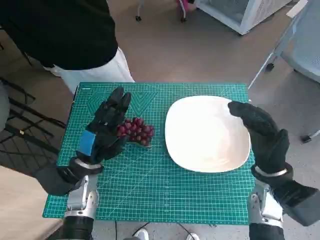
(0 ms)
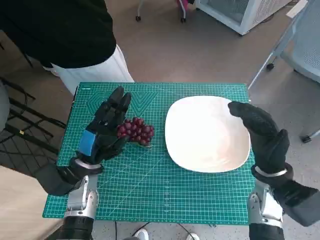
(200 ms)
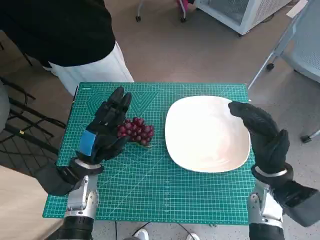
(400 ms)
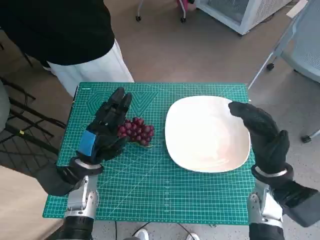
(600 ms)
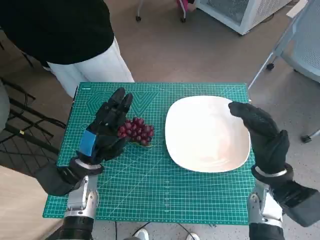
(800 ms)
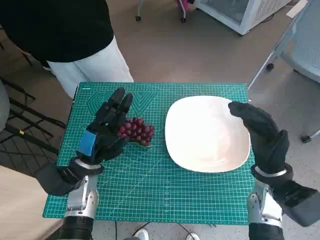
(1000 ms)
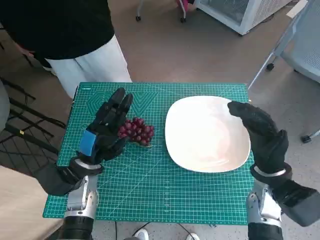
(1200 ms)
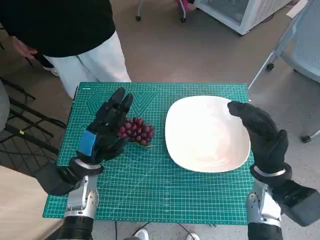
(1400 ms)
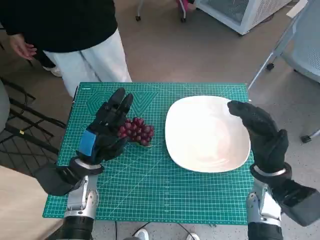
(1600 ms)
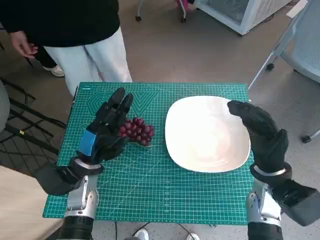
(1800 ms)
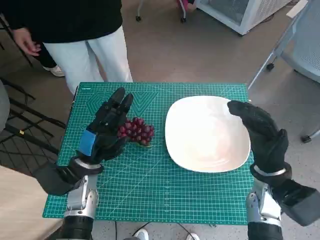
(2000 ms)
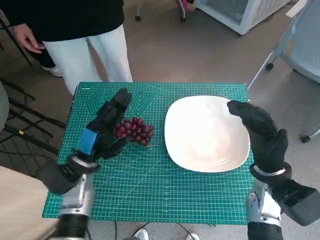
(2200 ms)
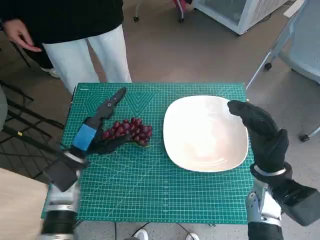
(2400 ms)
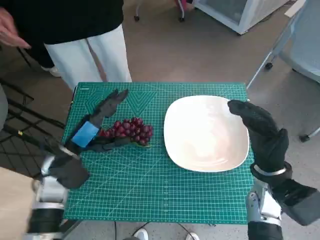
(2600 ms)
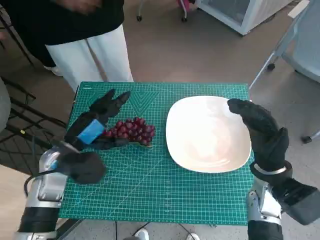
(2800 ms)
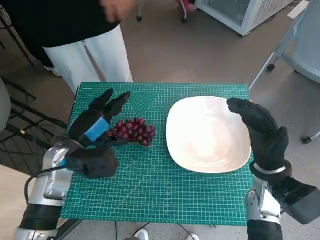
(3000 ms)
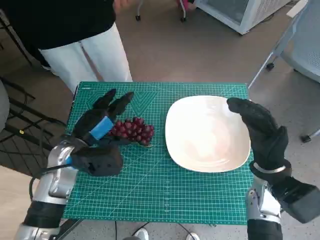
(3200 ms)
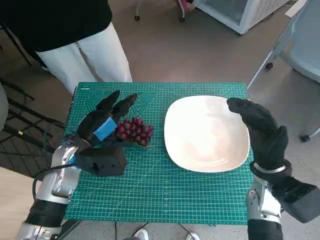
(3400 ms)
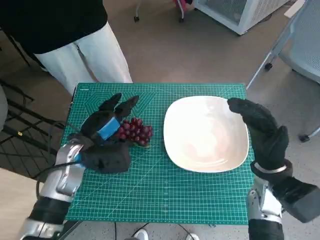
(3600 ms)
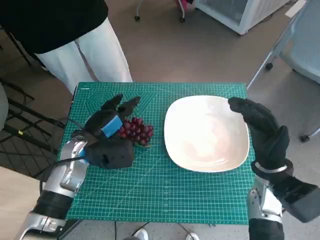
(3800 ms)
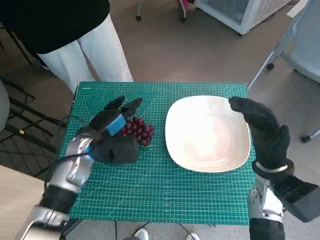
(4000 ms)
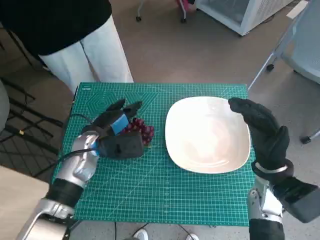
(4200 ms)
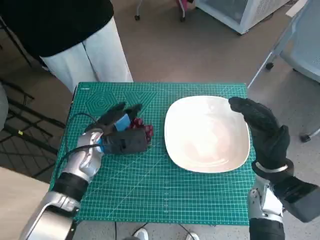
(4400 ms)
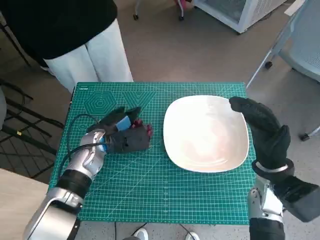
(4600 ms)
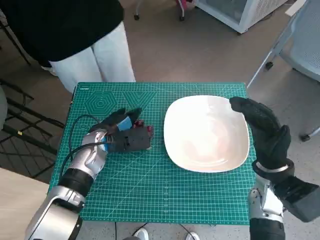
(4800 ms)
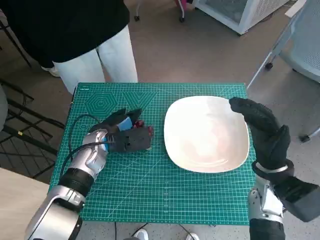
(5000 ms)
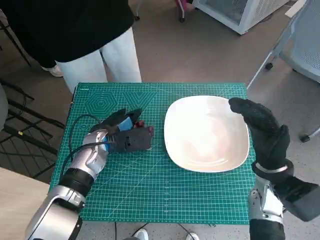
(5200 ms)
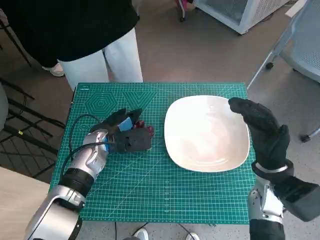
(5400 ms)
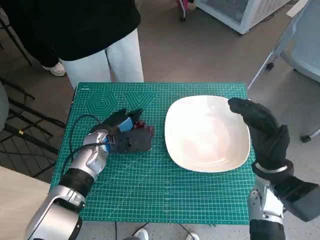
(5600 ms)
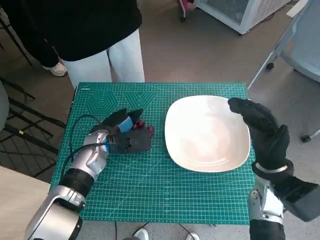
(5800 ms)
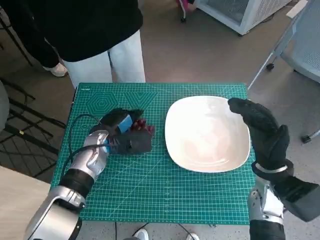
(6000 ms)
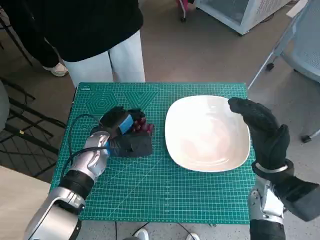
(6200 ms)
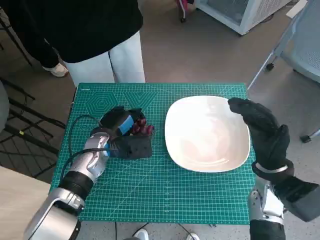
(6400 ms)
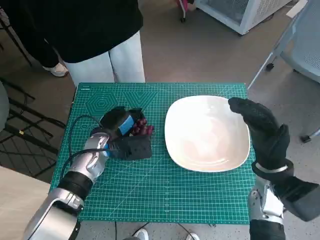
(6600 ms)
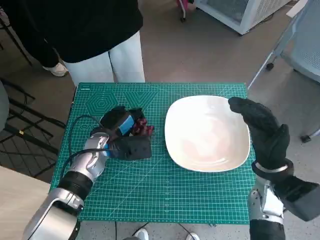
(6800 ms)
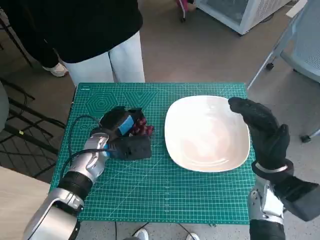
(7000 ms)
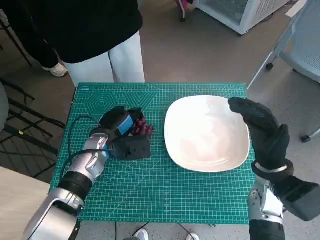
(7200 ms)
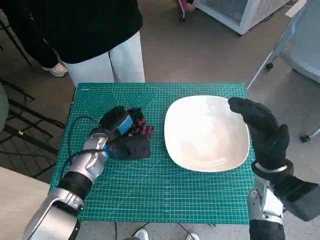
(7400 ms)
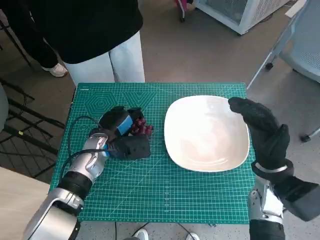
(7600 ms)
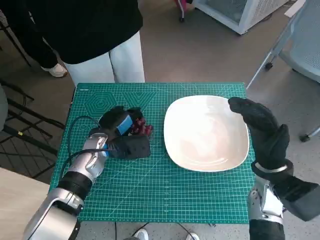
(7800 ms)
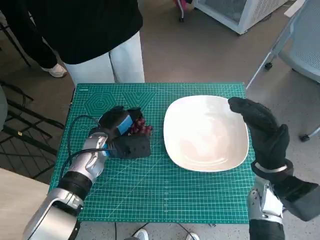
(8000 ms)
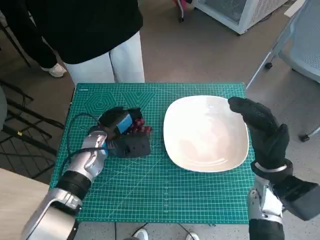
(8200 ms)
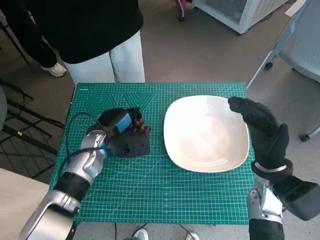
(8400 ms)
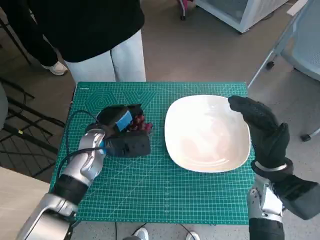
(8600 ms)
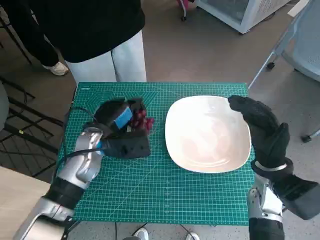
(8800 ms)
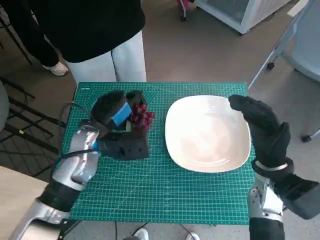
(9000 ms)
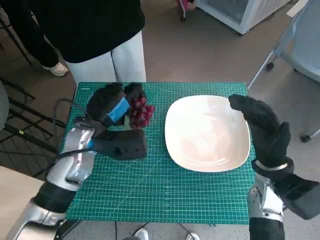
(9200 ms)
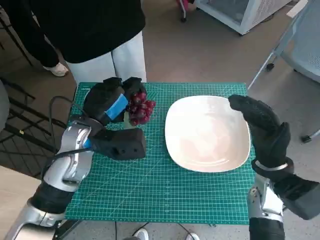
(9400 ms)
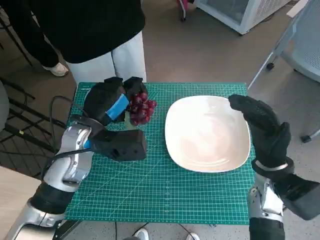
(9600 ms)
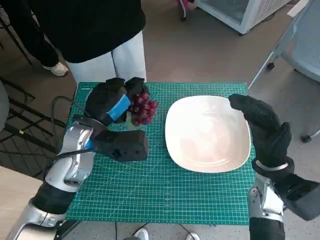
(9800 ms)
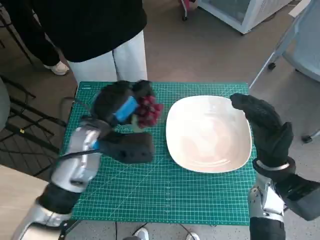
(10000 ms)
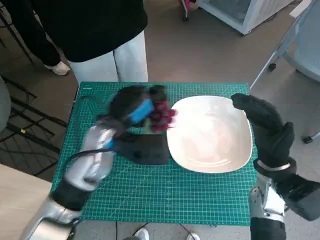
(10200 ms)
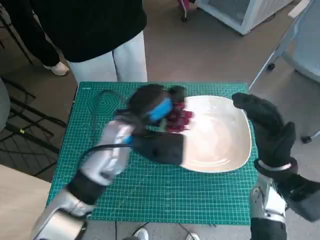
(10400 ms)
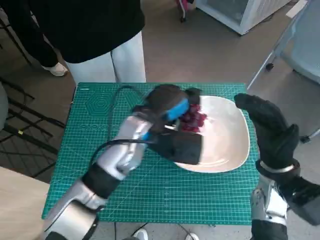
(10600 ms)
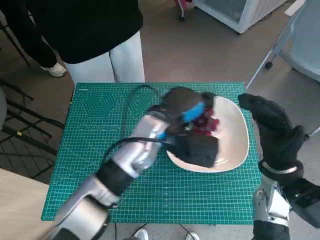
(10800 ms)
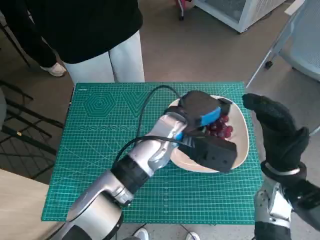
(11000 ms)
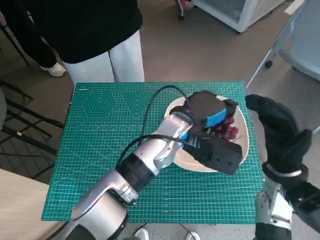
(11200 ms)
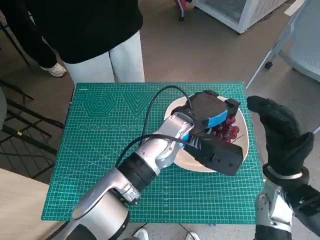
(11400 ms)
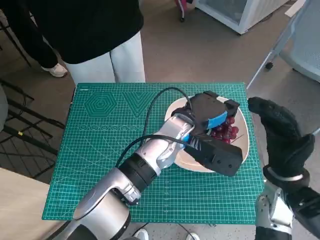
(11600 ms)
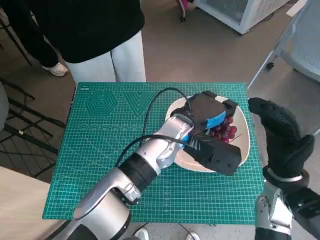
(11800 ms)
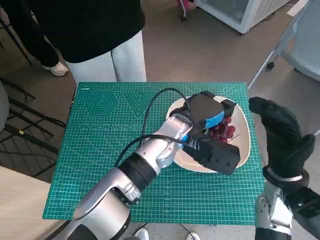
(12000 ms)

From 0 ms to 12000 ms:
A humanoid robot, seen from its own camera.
Task of the whole recording: Pick up the grapes and put them on the plate.
Step, from 0 ms to 6400 ms: Grasp the grapes with left hand.
From 1600 ms to 3000 ms: The left hand goes roughly 5 cm upward.
From 3000 ms to 4400 ms: The left hand shifts by about 5 cm.
From 4400 ms to 7600 ms: There are only small adjustments of the hands.
From 7600 ms to 9000 ms: The left hand goes some 5 cm upward.
From 9000 ms to 10400 ms: The left hand moves to the right, some 5 cm.
From 10400 ms to 12000 ms: The left hand travels to the right by roughly 10 cm.

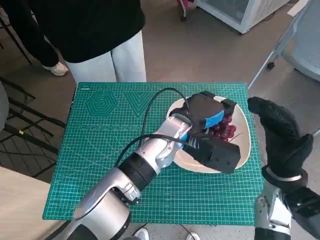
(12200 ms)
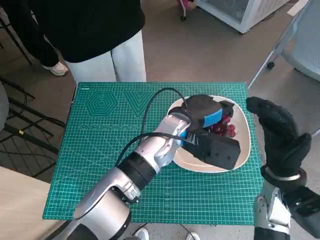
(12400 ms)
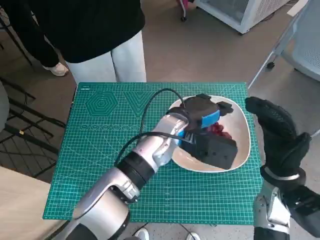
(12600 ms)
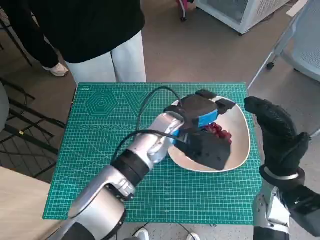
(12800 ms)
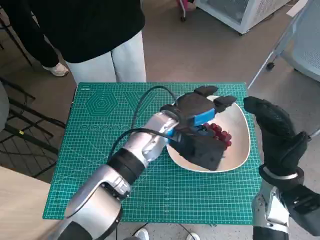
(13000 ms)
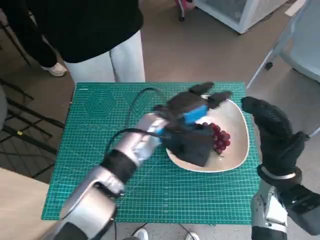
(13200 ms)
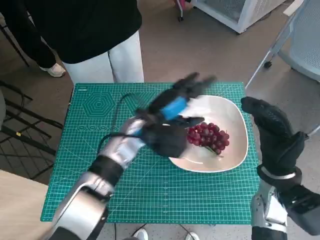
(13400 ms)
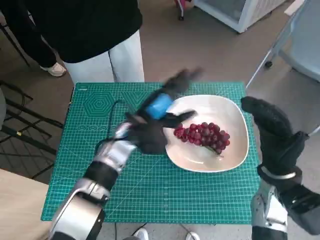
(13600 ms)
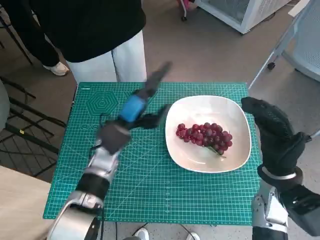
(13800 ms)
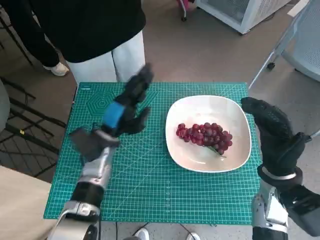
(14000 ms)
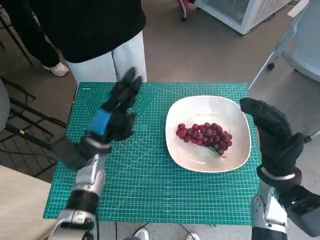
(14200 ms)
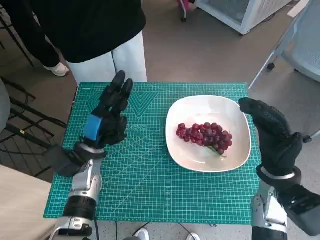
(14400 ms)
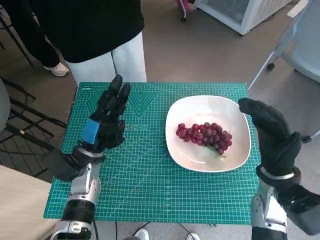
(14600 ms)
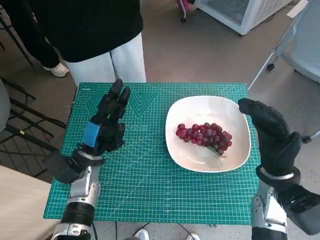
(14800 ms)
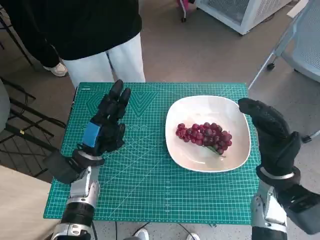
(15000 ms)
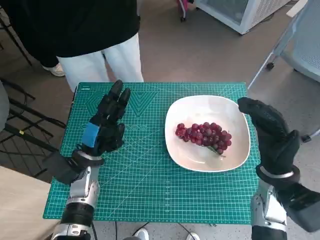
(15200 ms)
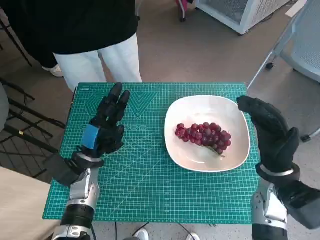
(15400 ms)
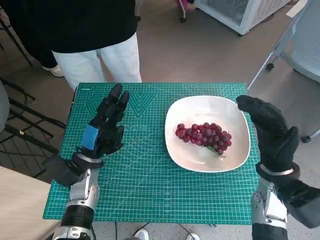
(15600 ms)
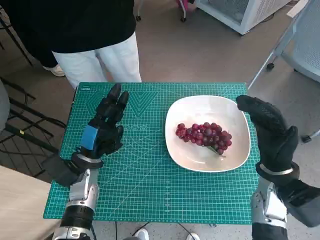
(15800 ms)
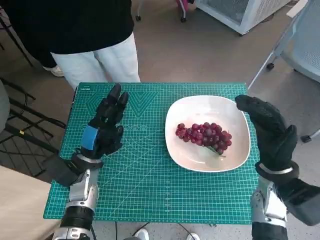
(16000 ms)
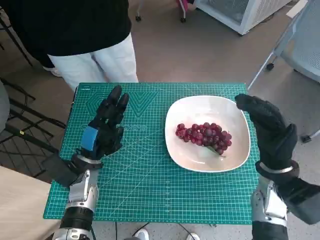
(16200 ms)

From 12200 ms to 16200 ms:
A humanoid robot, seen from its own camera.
Task of the whole recording: Pick up the grapes and put them on the plate.
From 12200 ms to 13600 ms: The left hand goes some 10 cm to the left.
From 13600 ms to 14800 ms: The left hand heads to the left, downward and backward, covering approximately 15 cm.
From 14800 ms to 16200 ms: Neither hand changes place.

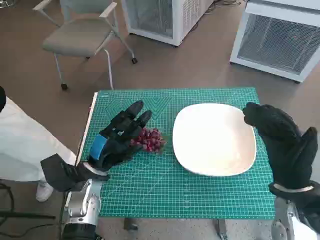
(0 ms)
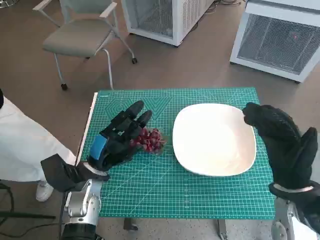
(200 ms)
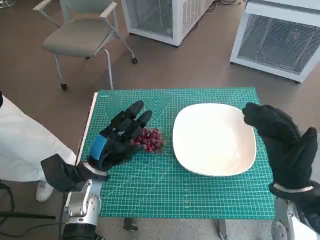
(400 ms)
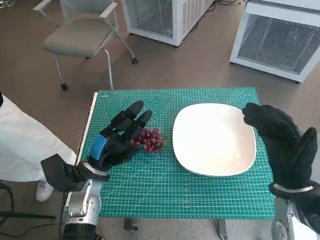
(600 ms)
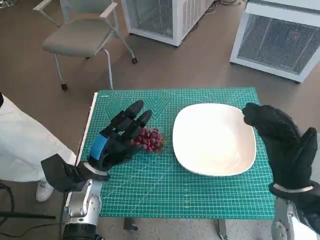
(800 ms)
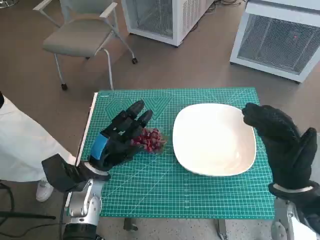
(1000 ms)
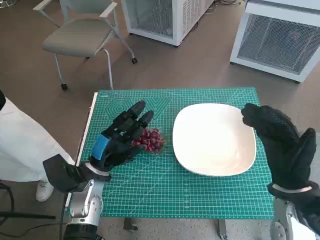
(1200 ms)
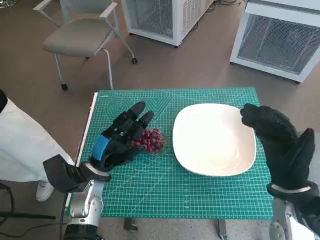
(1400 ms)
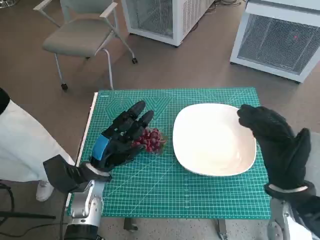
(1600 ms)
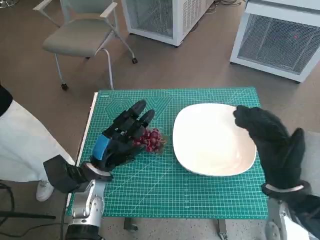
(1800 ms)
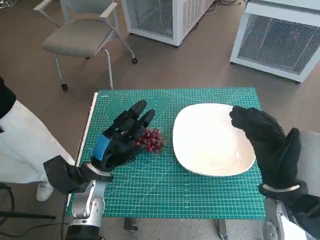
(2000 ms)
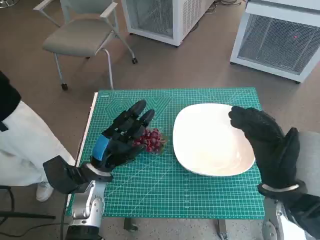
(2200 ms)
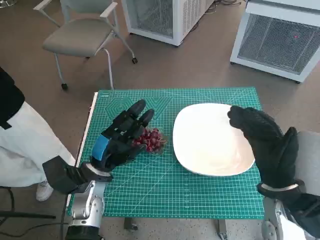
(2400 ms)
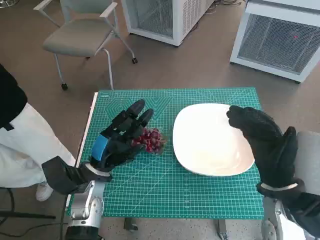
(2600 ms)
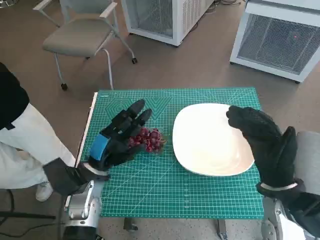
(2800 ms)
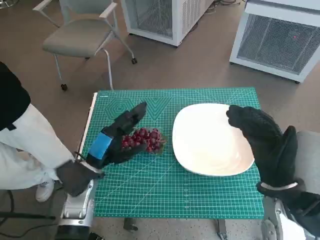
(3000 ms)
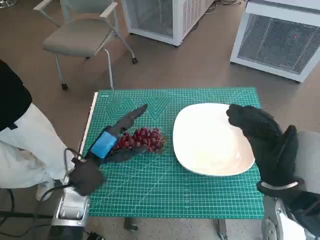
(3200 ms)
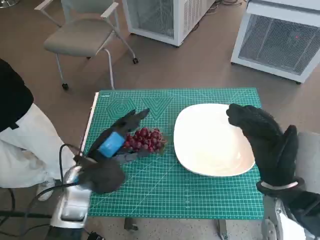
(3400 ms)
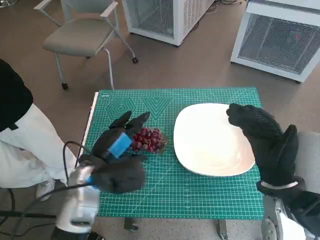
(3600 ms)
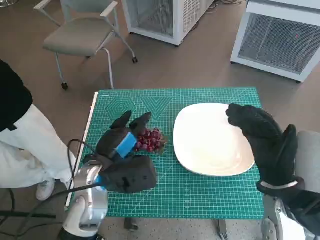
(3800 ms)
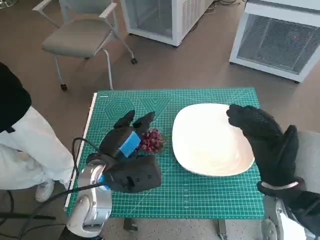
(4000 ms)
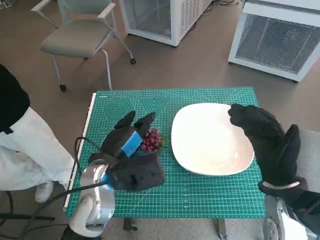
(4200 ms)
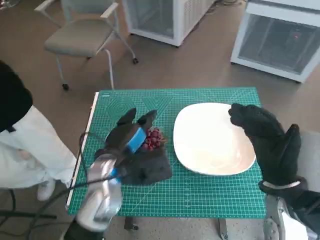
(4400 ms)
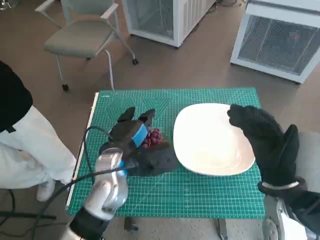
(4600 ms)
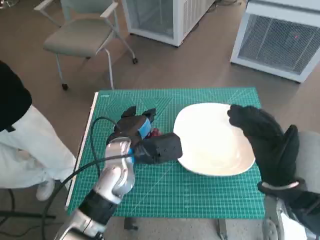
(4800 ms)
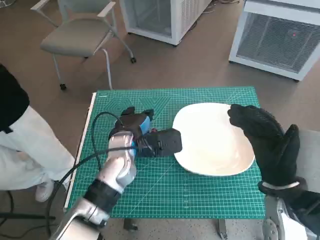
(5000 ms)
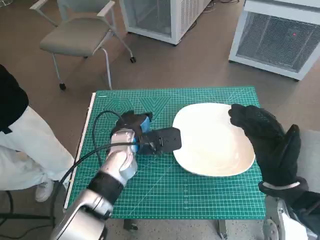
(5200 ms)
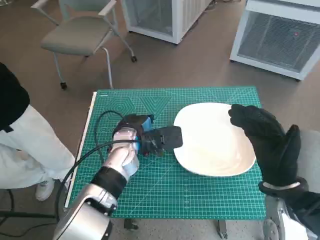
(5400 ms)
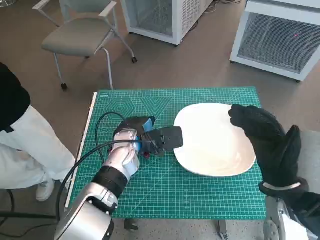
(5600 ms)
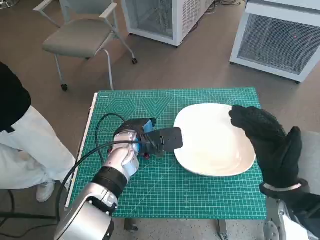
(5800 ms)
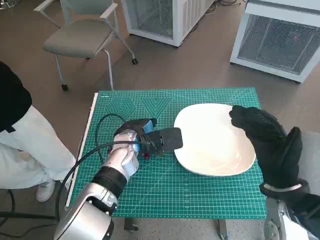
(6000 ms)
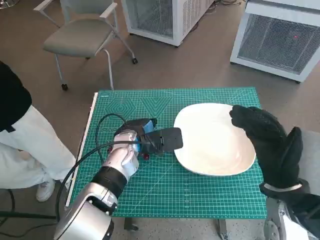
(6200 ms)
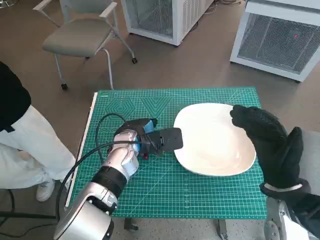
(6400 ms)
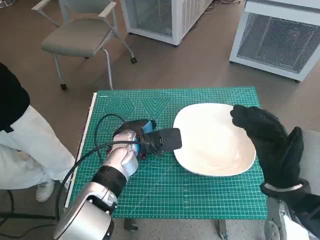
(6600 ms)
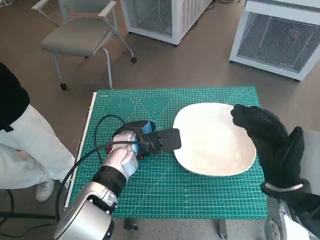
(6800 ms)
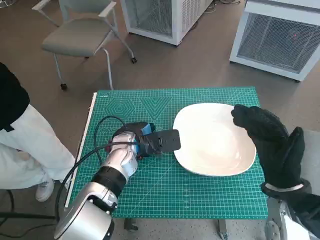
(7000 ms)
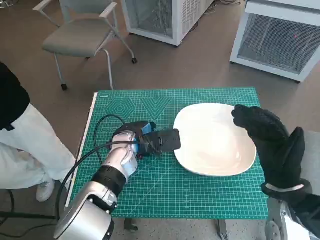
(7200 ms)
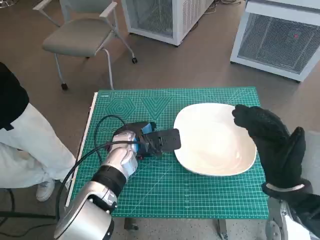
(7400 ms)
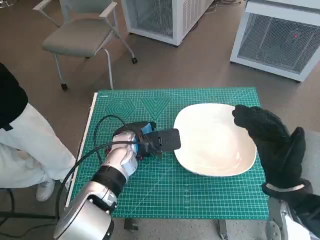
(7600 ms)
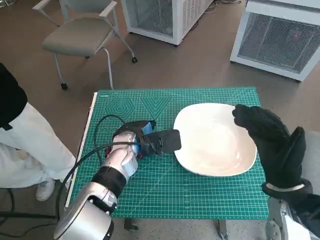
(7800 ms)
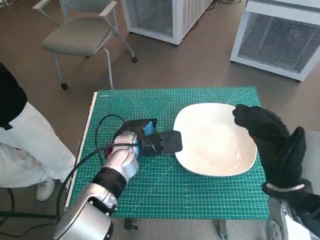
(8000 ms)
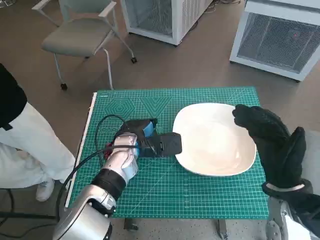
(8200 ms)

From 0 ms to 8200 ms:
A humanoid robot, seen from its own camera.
Task of the whole recording: Pick up the grapes and put them on the plate.
From 3200 ms to 5000 ms: The left hand moves to the right and forward, approximately 10 cm.
From 5000 ms to 6600 ms: The hands stay close to where they were, moving slightly.
From 6600 ms to 8200 ms: Both hands stay put.
